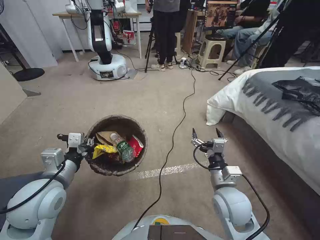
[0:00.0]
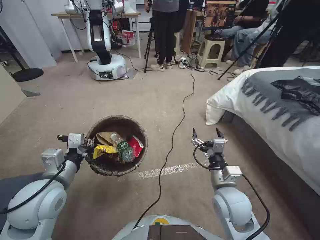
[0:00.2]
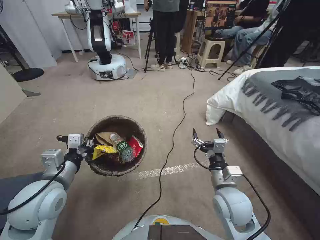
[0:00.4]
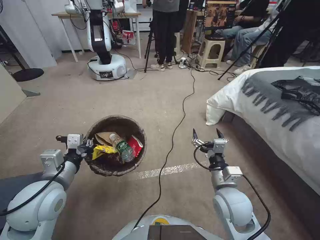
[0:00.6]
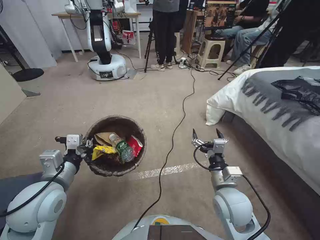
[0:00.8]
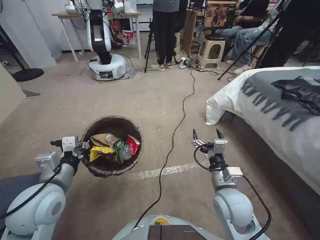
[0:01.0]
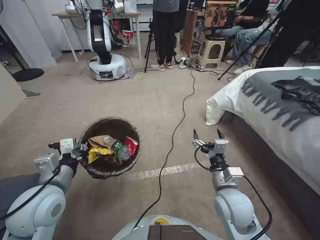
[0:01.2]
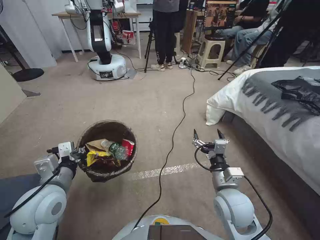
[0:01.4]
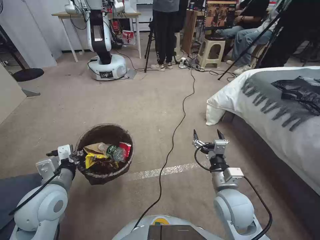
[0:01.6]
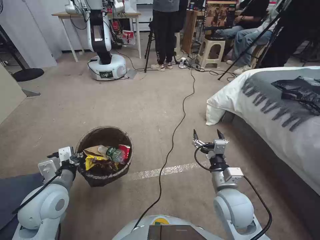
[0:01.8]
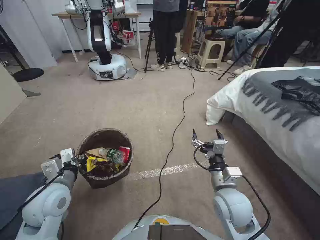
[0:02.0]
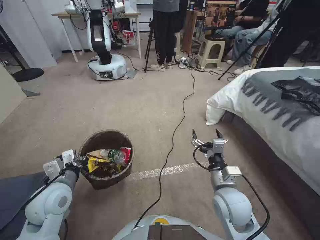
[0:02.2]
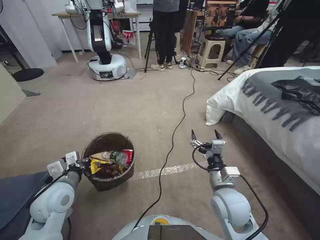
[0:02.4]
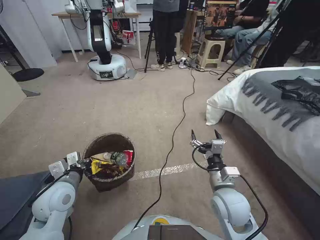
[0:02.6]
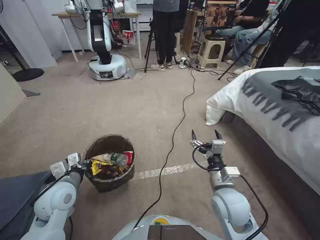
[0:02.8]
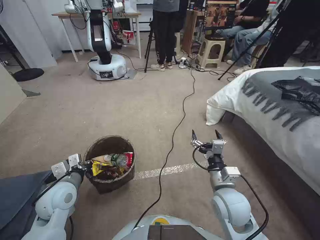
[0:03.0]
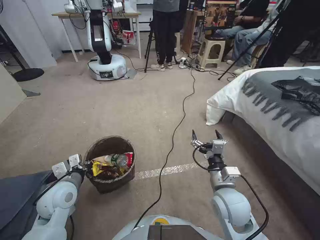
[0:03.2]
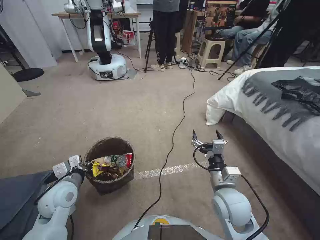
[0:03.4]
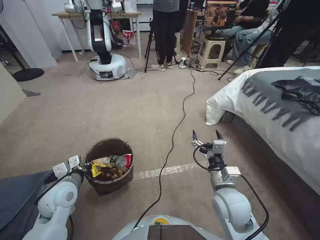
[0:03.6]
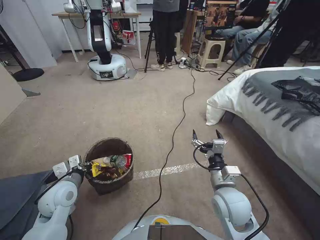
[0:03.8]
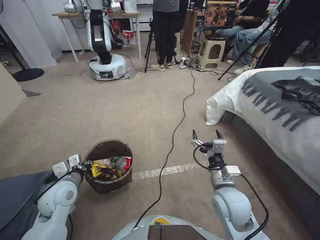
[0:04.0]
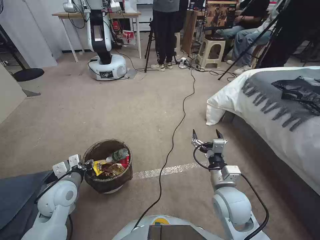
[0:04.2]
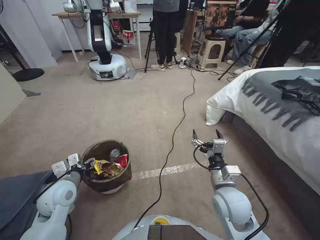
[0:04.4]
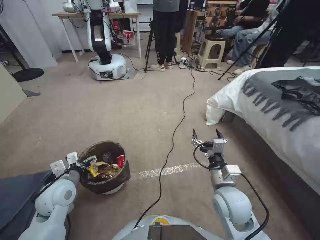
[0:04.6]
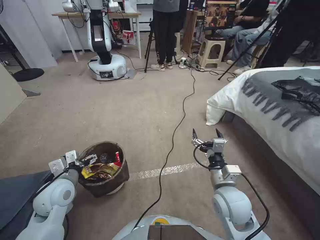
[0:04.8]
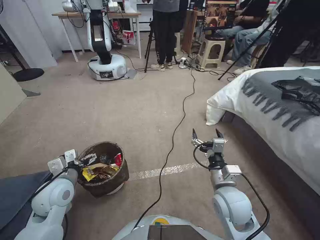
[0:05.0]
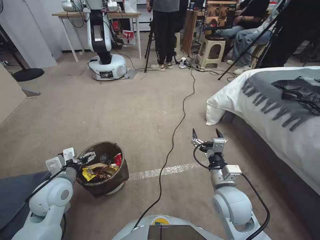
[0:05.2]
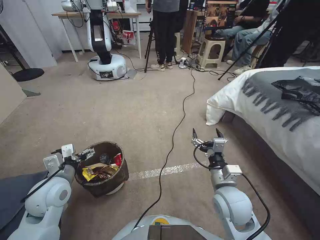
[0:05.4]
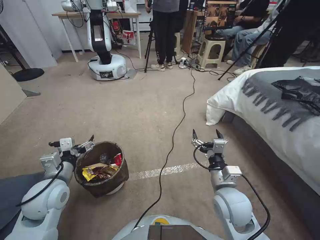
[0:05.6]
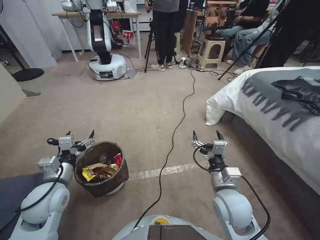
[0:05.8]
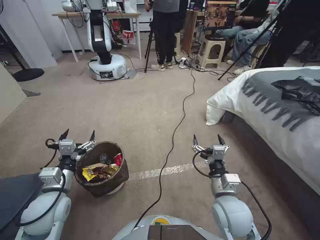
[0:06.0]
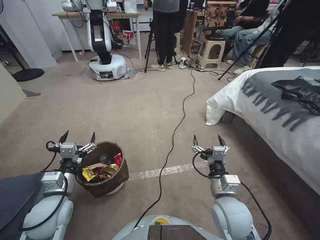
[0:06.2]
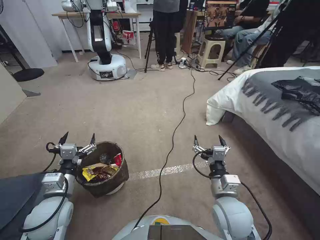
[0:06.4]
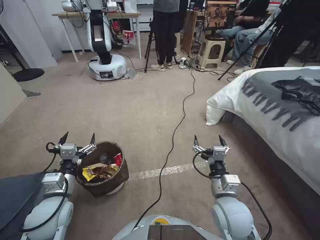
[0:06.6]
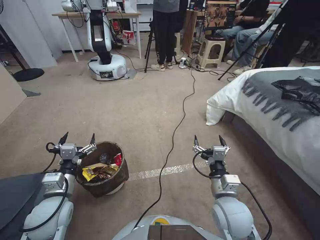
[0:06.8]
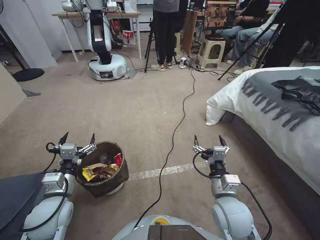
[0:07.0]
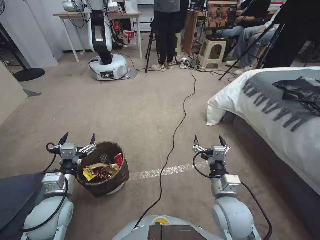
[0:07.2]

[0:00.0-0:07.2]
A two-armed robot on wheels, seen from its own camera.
Task of the whole recording: Pick up the trash bin, then pick up the garbage from the floor and place it into the trash bin.
0:00.0 to 0:01.4: There are only small adjustments of the grippers.
0:01.4 to 0:02.8: The left gripper travels downward by approximately 5 cm.
0:02.8 to 0:04.4: The left gripper opens its fingers.
0:04.4 to 0:05.8: The left gripper opens up.
0:05.8 to 0:07.2: The grippers move only a little.
